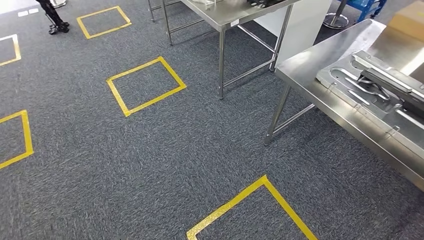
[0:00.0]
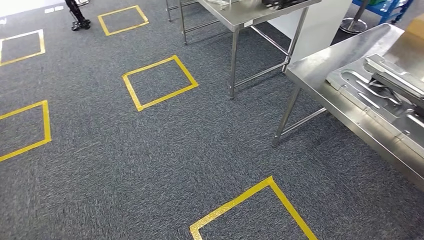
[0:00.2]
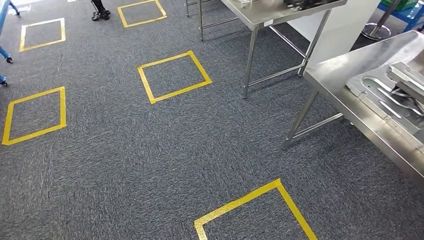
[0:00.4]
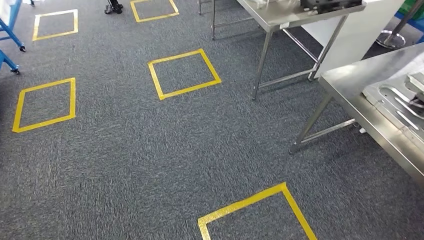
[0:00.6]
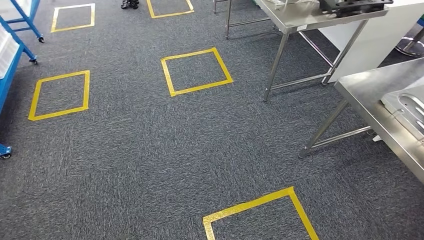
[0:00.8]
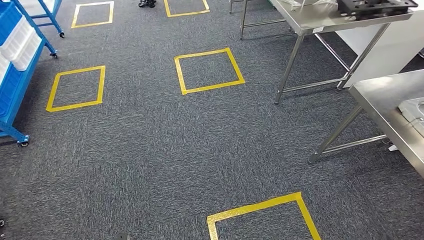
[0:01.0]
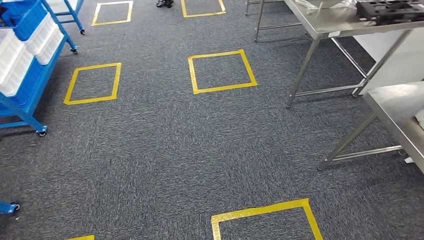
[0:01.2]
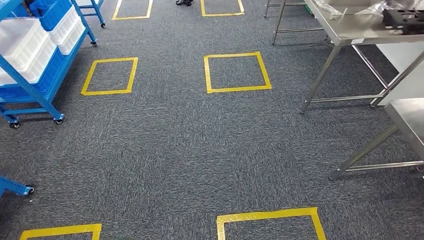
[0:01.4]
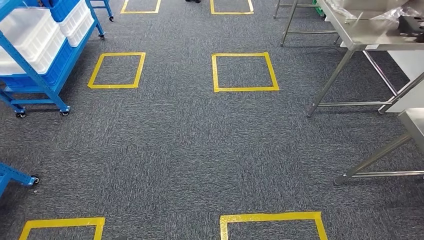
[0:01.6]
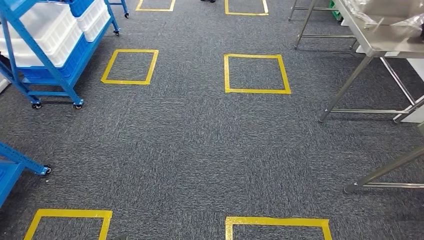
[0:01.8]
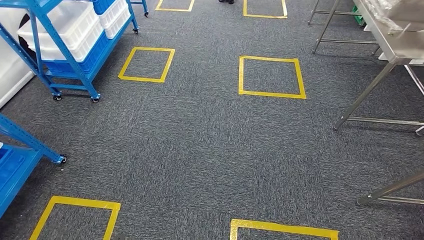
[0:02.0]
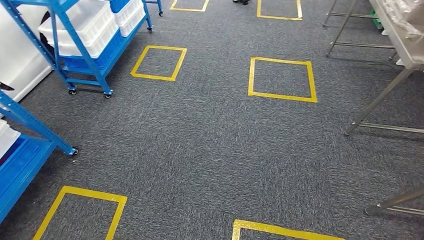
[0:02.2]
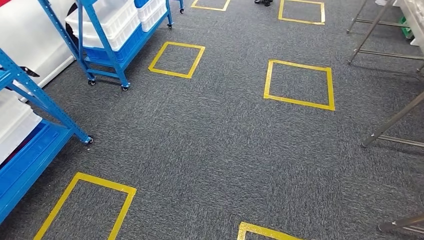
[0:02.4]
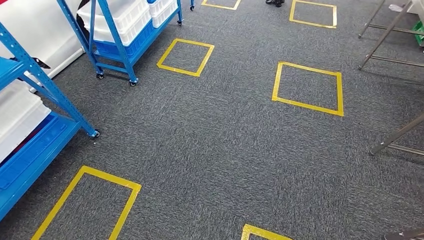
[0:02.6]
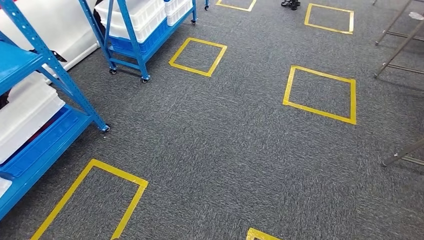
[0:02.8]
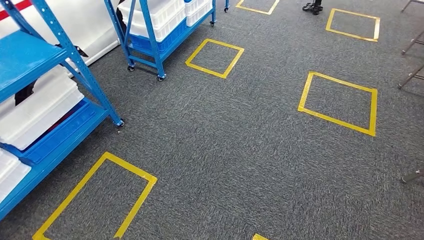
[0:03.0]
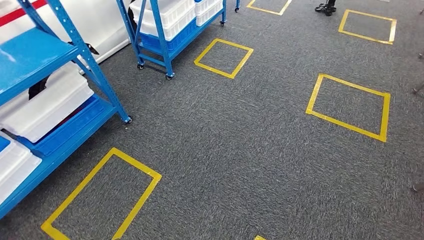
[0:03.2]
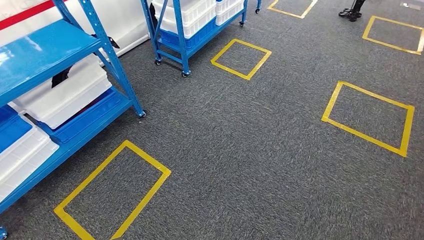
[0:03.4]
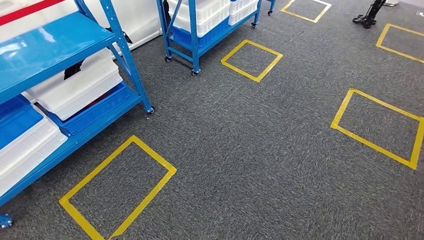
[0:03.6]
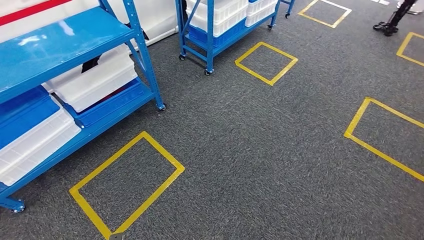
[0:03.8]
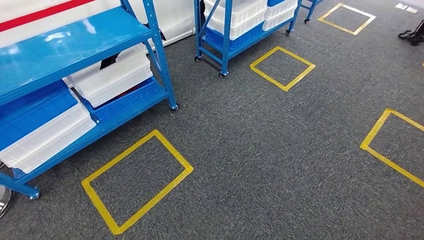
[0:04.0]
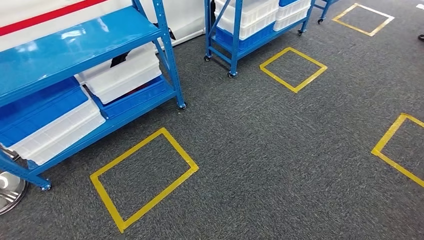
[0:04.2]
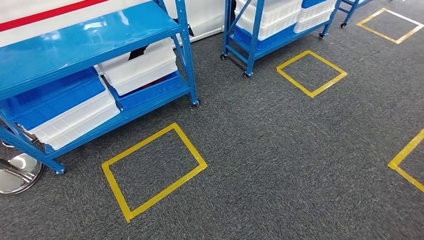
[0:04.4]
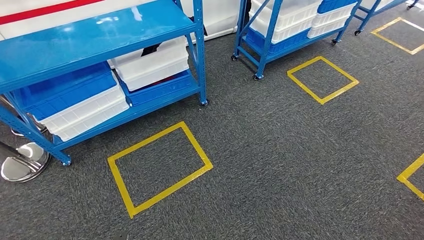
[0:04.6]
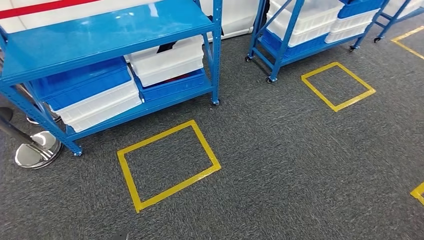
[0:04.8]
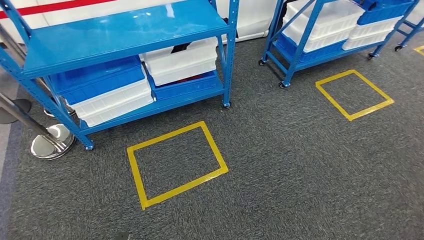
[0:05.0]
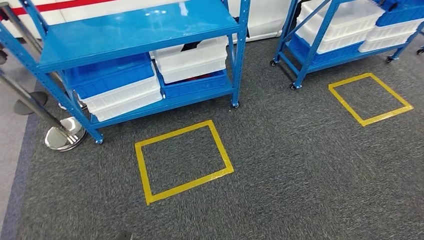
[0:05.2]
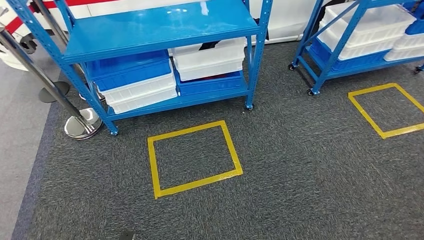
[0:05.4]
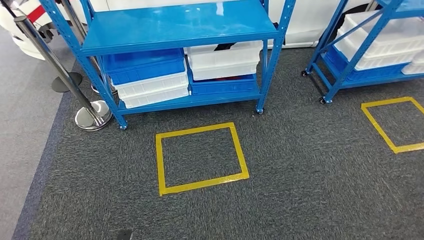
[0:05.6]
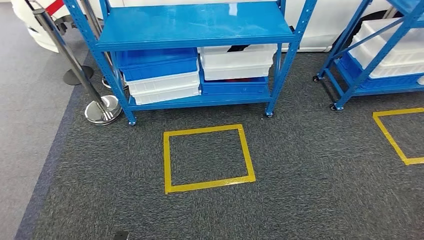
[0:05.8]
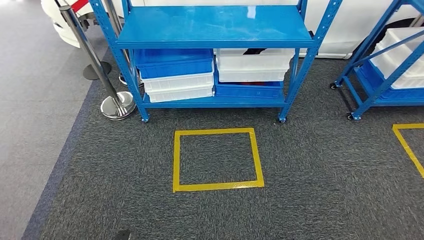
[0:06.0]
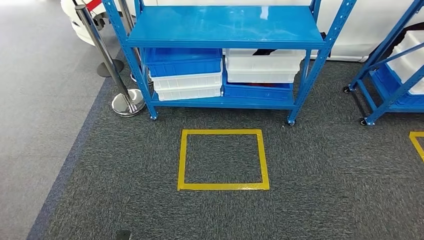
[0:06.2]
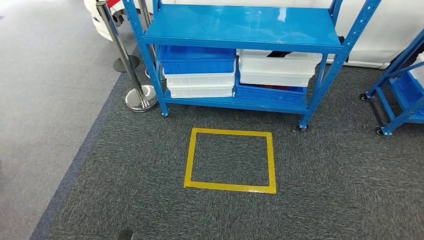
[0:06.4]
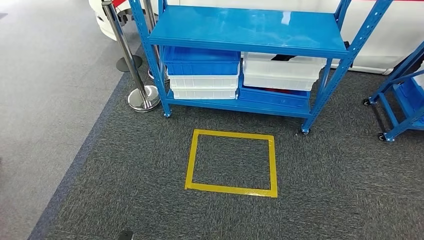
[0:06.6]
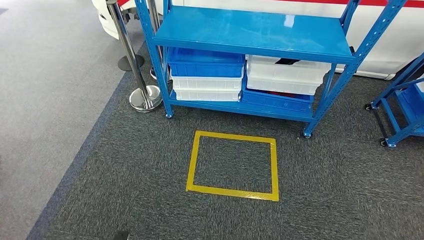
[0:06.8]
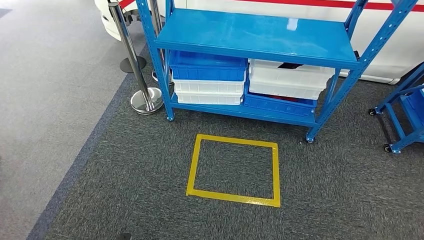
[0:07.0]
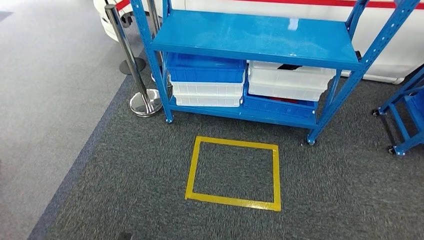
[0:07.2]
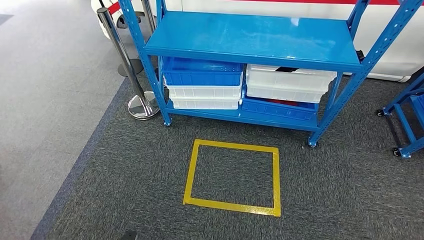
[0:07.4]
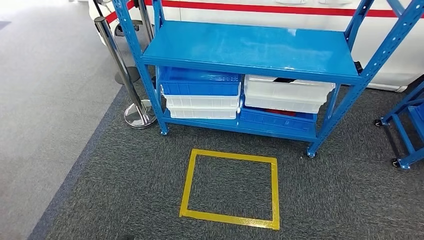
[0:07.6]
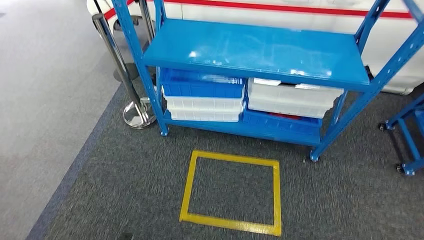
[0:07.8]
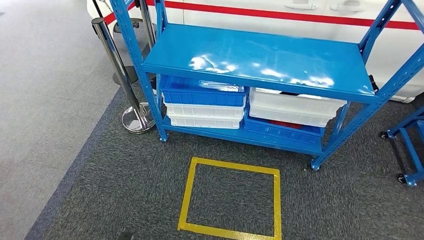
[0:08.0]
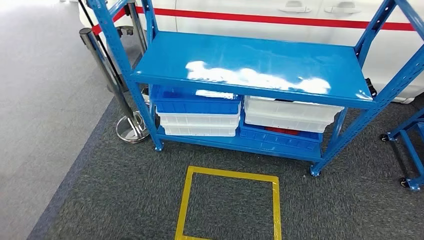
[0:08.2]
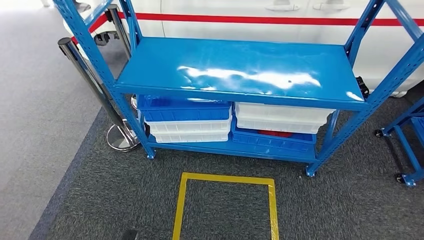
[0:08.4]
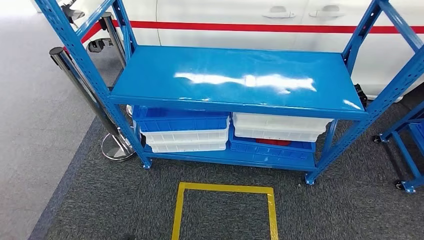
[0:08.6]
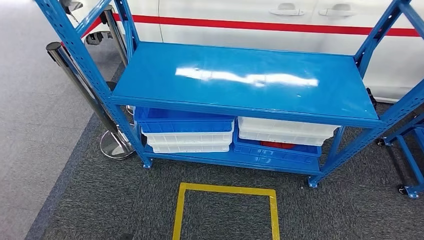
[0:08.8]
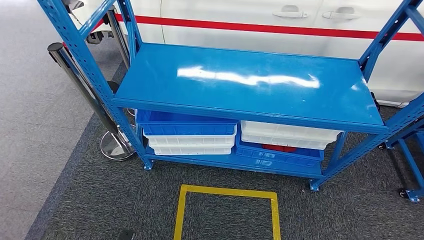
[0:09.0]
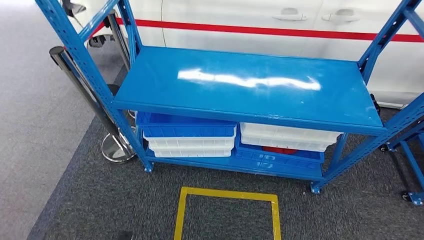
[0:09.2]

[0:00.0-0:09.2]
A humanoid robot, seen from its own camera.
Step, 0:00.8 to 0:09.2: Move to the initial position of the shelf.
